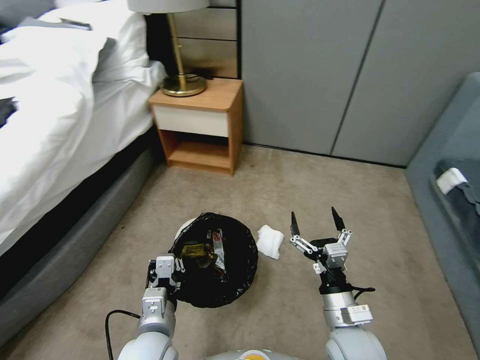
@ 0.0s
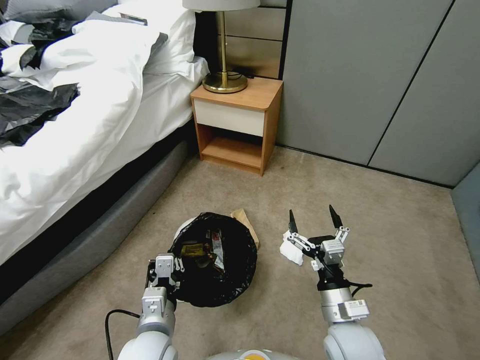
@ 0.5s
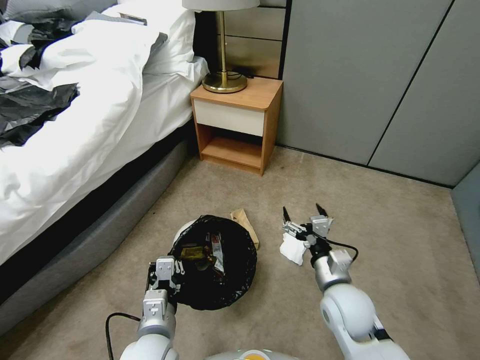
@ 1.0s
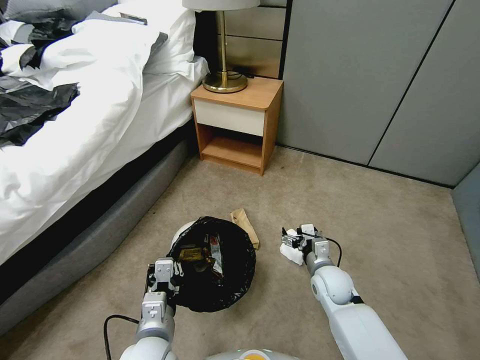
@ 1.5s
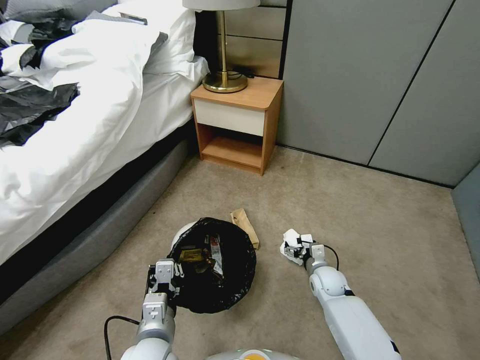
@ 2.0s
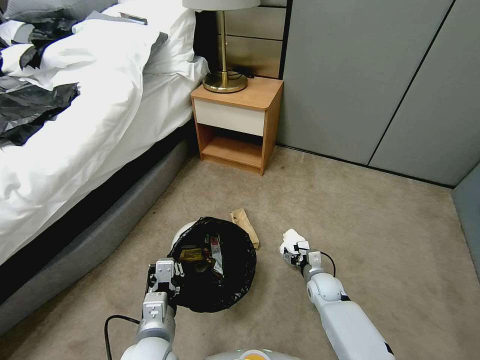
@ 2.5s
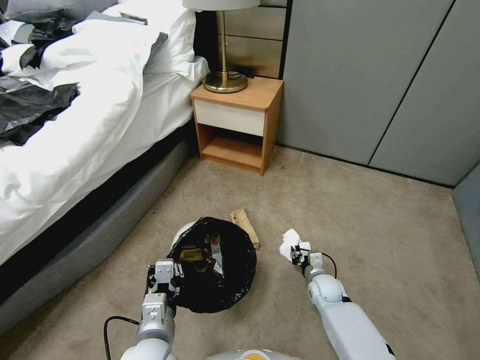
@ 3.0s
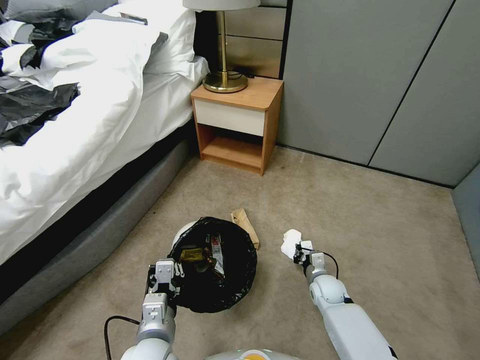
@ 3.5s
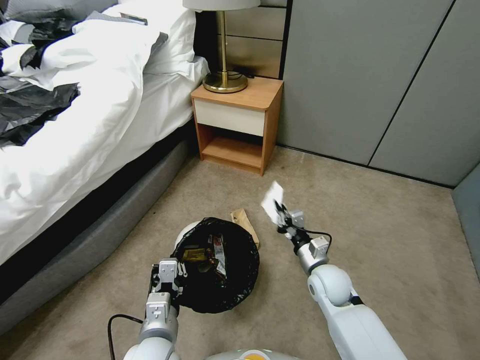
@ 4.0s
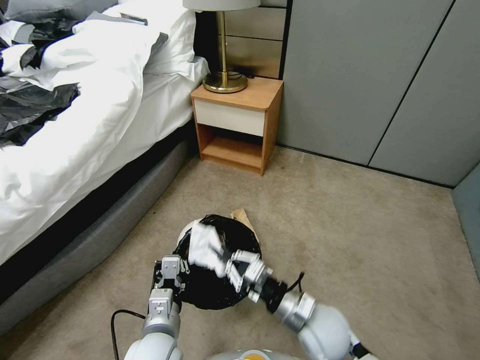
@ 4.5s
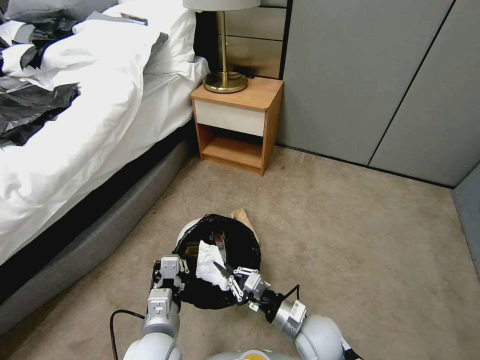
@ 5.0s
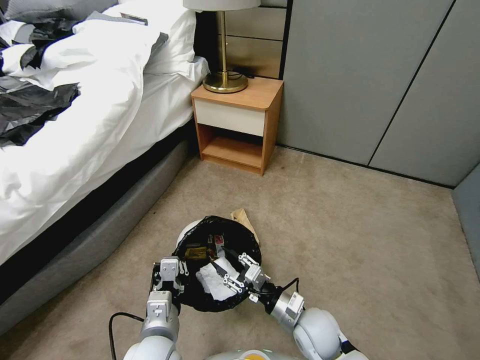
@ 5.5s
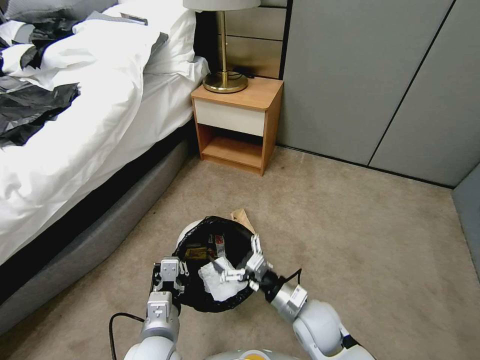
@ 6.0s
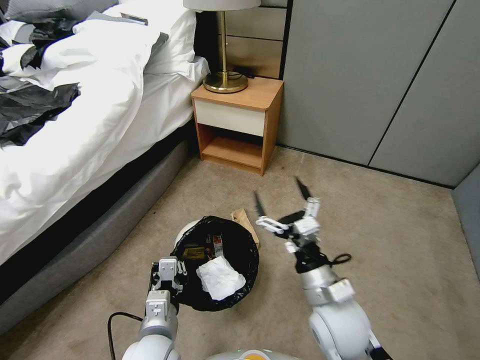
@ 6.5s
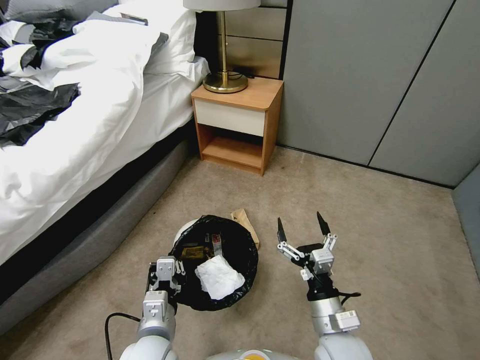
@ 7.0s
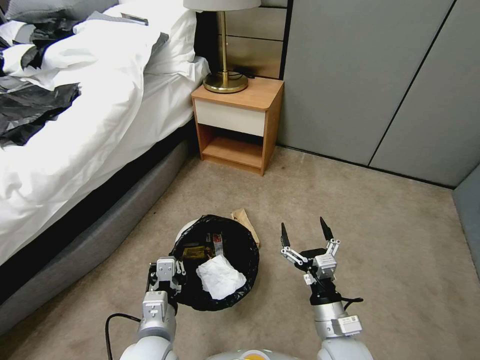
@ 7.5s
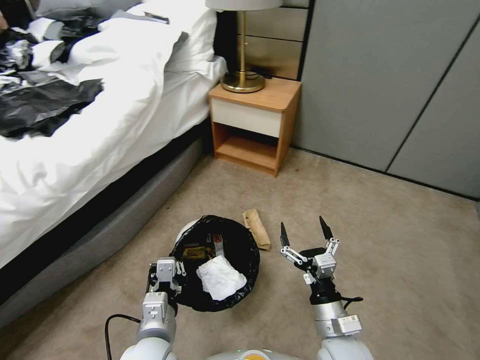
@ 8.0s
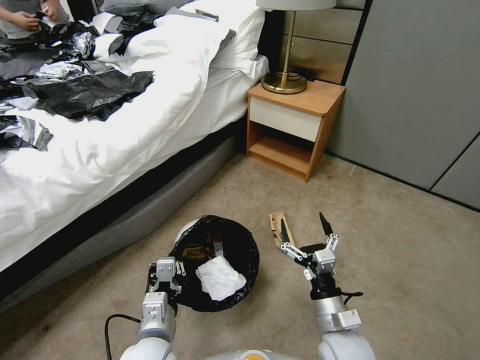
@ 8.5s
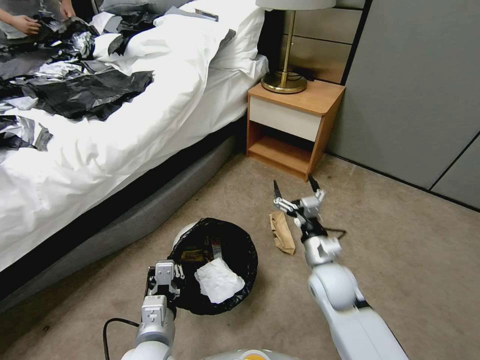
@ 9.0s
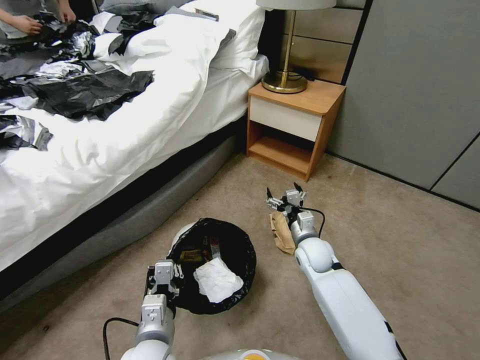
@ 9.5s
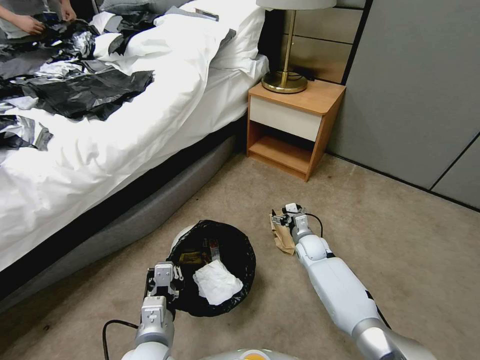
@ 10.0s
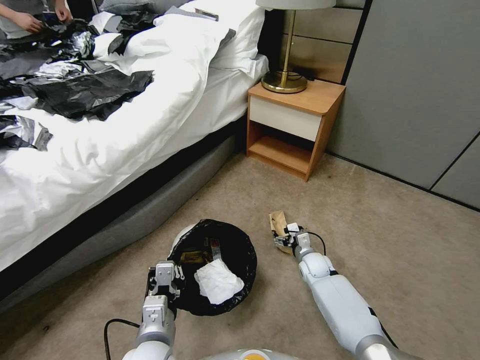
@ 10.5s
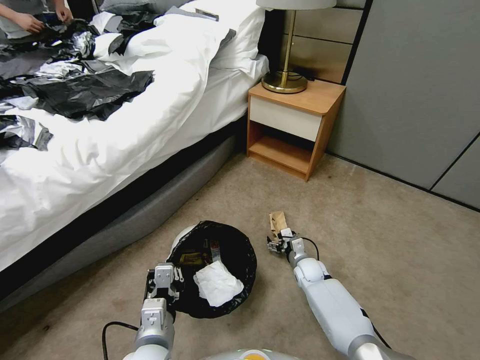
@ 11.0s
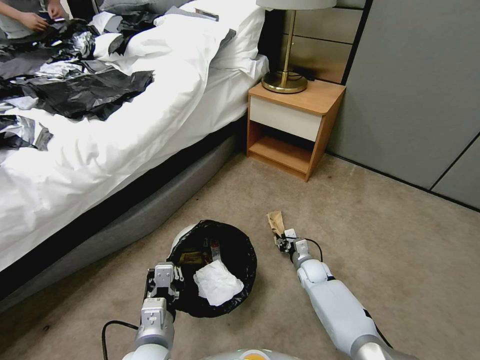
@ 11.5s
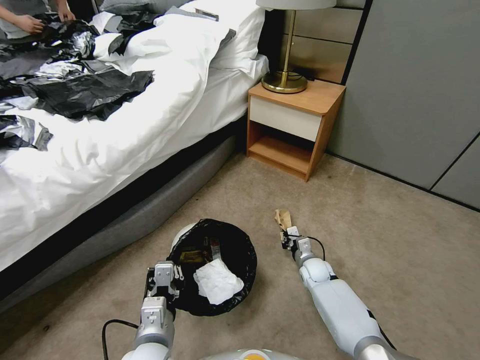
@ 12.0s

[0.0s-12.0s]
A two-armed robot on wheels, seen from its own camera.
Task of the whole recording: Pick up the trash bin, then pick up the garbage from the floor and place it into the trash bin.
0.0s to 2.0s: The right gripper travels forward and downward by about 25 cm.
2.0s to 4.0s: The right gripper goes approximately 10 cm upward, and closes up.
4.0s to 6.0s: The right gripper goes some 10 cm backward and to the left, and opens.
6.0s to 8.0s: The right gripper travels backward by about 5 cm, and goes upward and returns, about 10 cm each way.
8.0s to 10.0s: The right gripper heads forward, covering roughly 30 cm.
10.0s to 12.0s: The right gripper goes some 5 cm downward, and closes up.

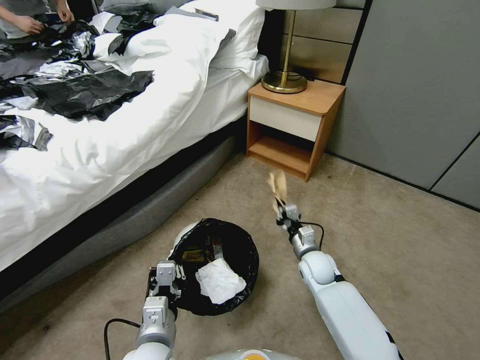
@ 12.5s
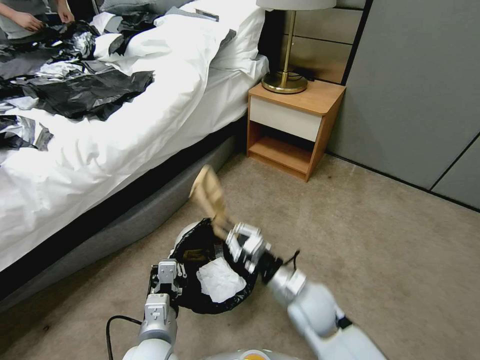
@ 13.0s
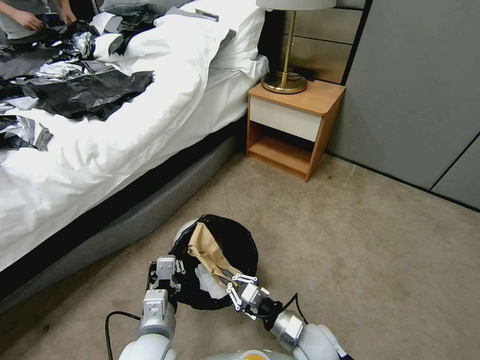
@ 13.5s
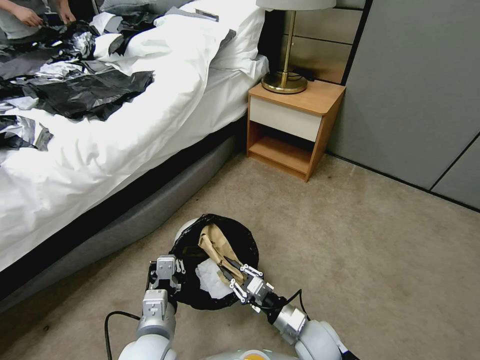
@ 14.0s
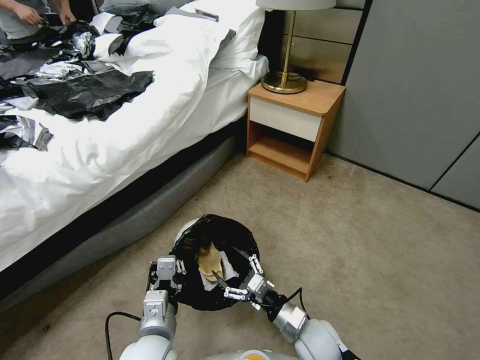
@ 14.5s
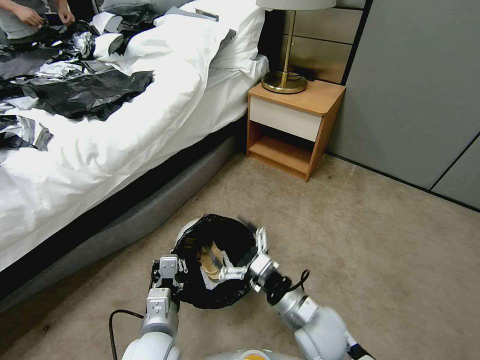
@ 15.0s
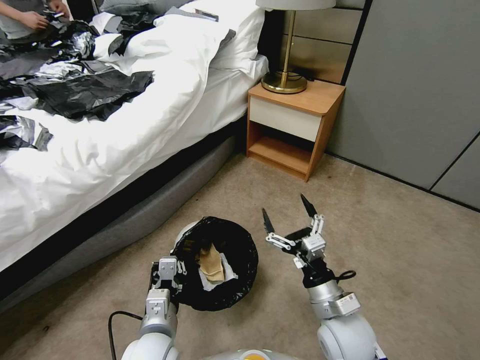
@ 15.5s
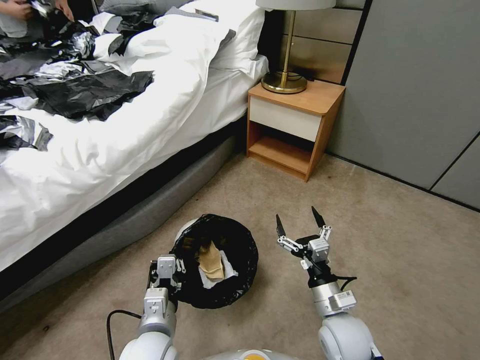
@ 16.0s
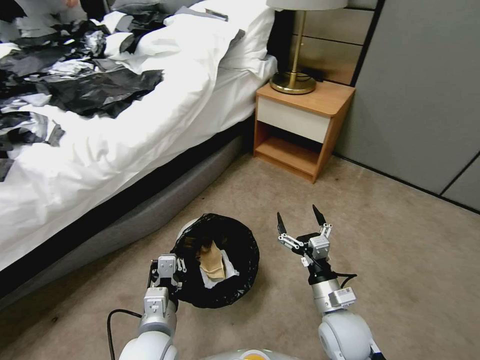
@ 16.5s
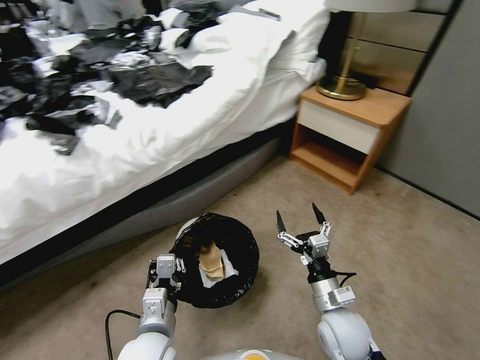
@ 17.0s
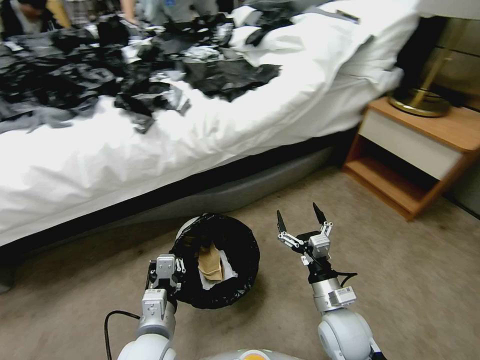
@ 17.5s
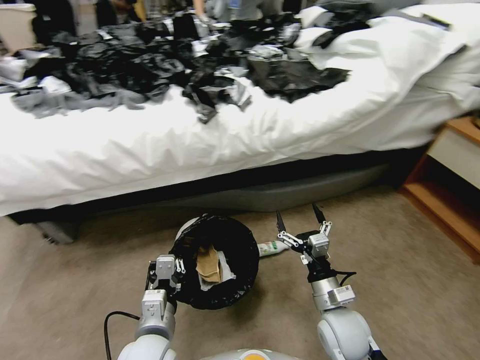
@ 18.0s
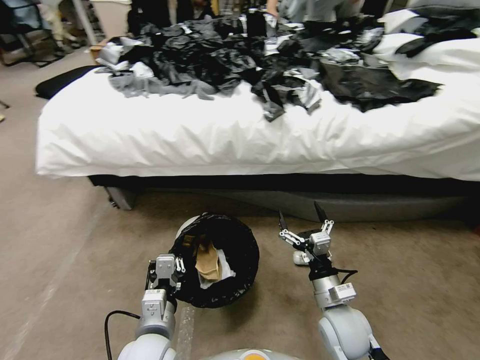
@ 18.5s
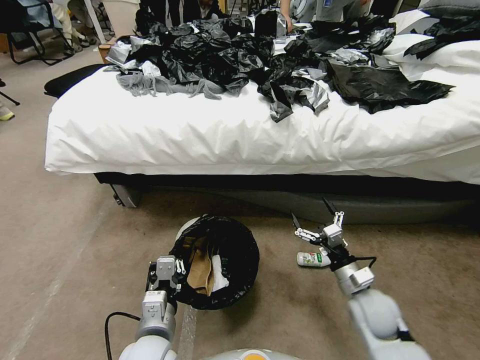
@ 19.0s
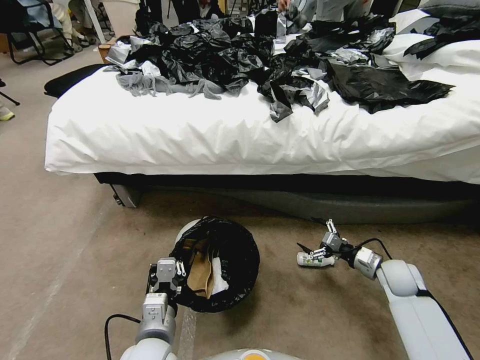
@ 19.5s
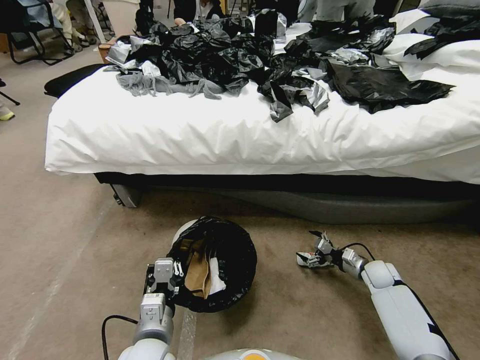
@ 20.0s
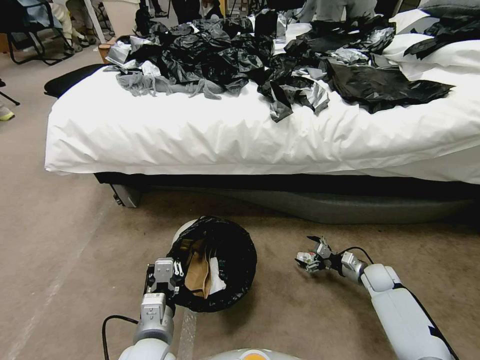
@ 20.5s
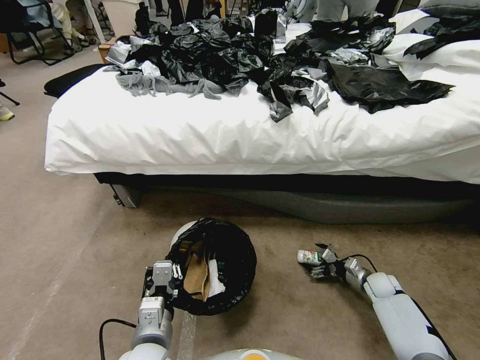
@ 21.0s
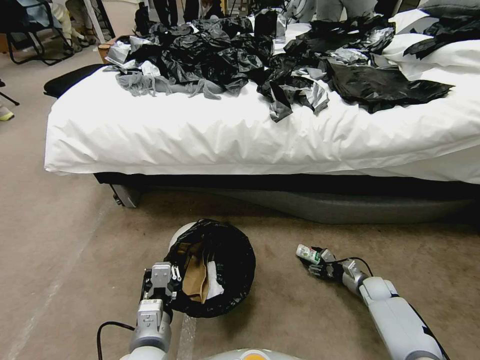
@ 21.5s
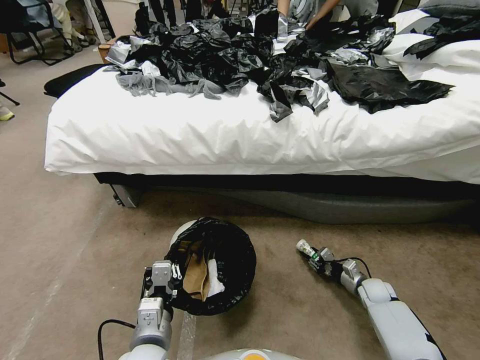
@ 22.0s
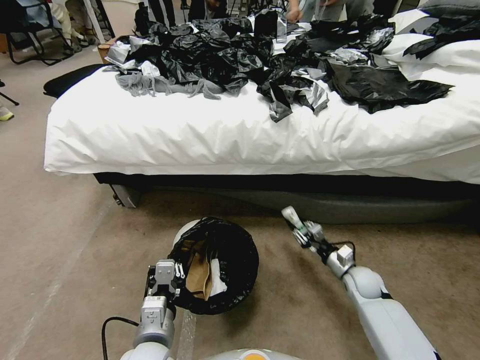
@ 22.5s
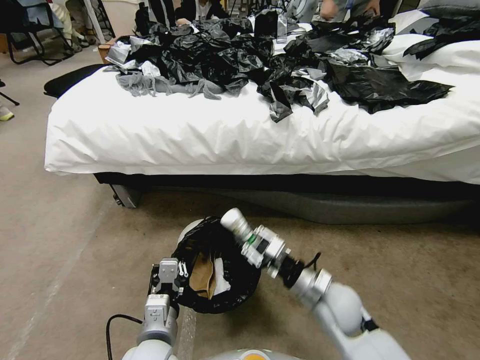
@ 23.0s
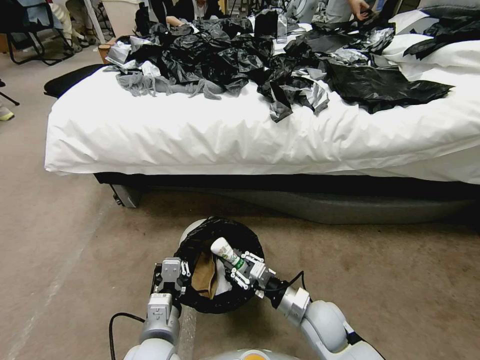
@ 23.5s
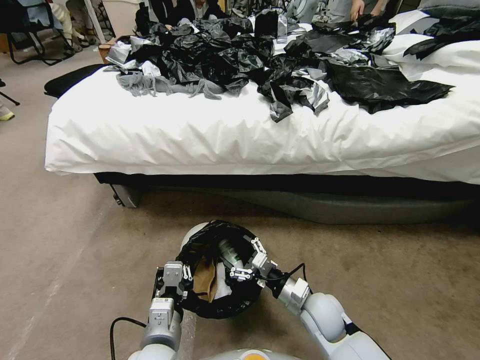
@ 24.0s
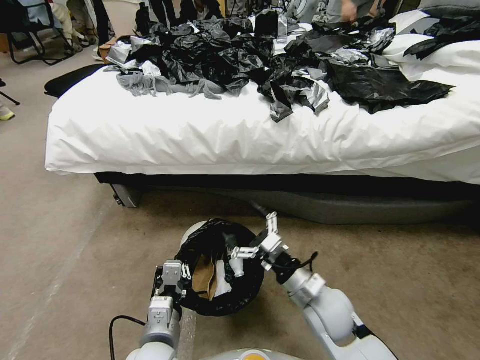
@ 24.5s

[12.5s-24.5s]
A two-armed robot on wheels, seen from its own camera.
Task of the whole recording: Pick up the trash bin, then pick up the garbage from the floor and place it into the trash bin.
12.5s to 14.5s: The right gripper heads backward, covering roughly 15 cm, and opens up.
14.5s to 16.5s: The right gripper shifts roughly 5 cm upward.
18.5s to 20.5s: The right gripper moves to the right, forward and downward, about 30 cm.
20.5s to 22.5s: The right gripper travels to the left by approximately 5 cm, and closes.
22.5s to 24.5s: The right gripper shifts approximately 25 cm to the left, upward and backward, and opens its fingers.

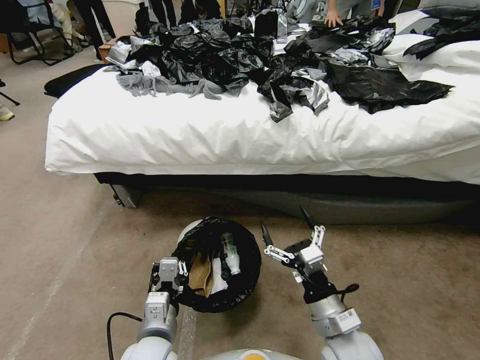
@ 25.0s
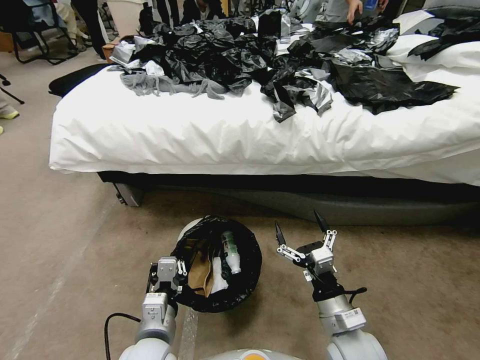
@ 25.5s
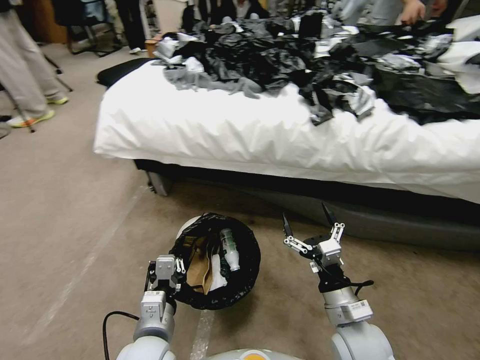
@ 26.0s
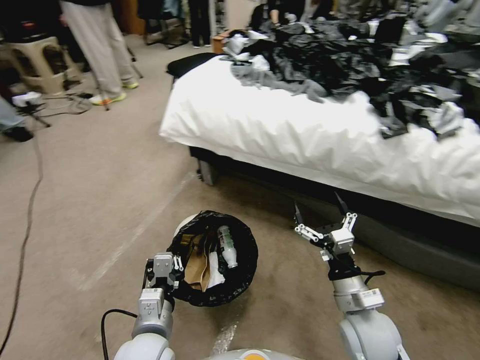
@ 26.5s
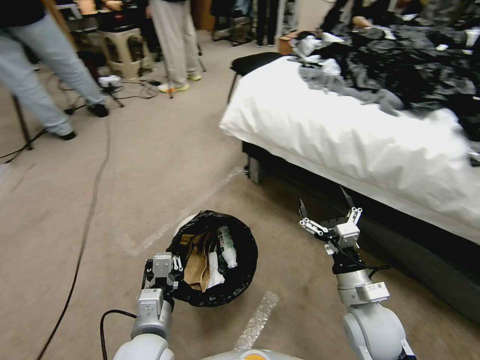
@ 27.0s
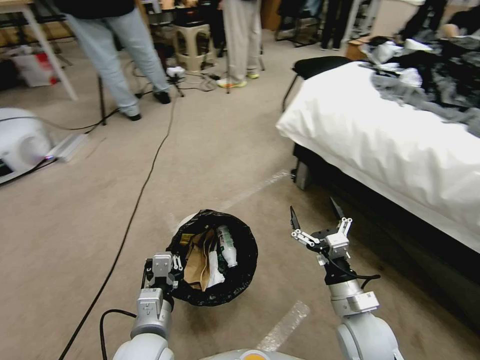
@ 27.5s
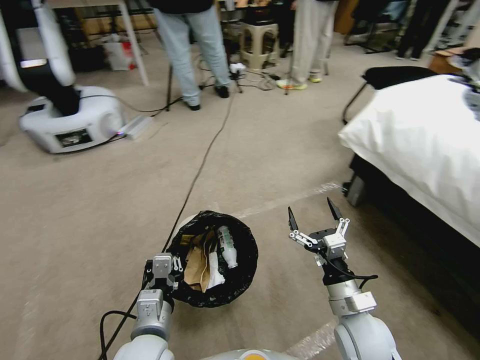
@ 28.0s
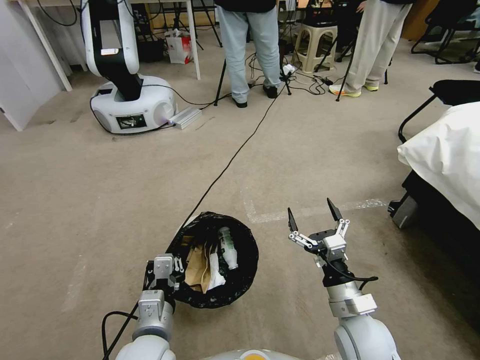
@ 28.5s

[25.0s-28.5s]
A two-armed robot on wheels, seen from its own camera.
Task of the whole recording: Pick up the trash bin, then pick up the garbage from the floor and place it into the trash bin.
25.0s to 27.0s: The right gripper moves to the right, approximately 5 cm.
